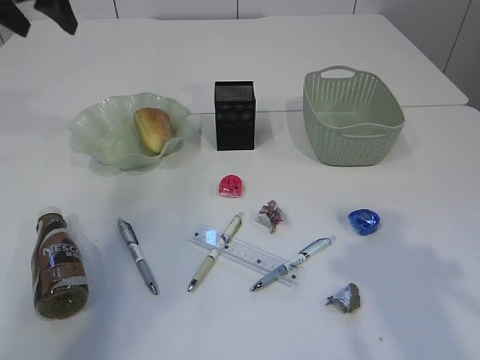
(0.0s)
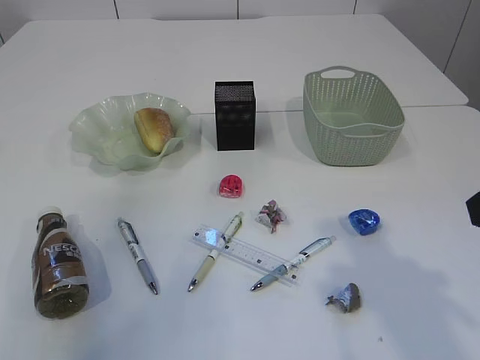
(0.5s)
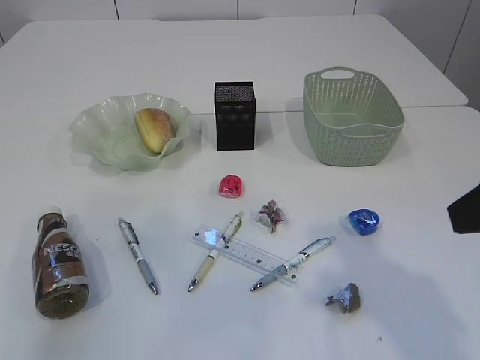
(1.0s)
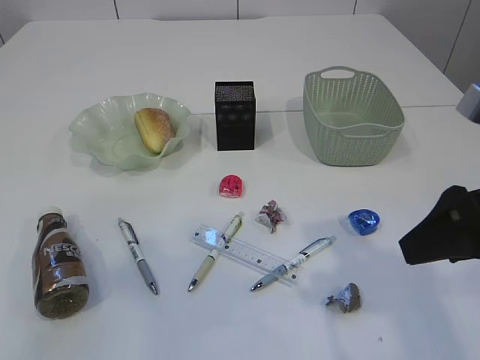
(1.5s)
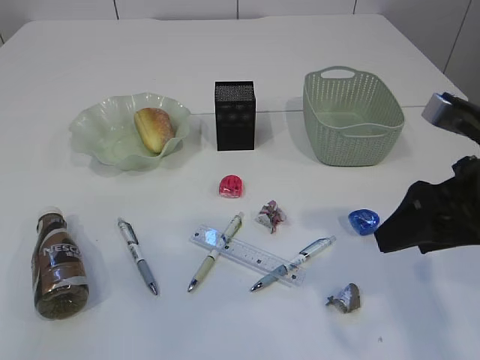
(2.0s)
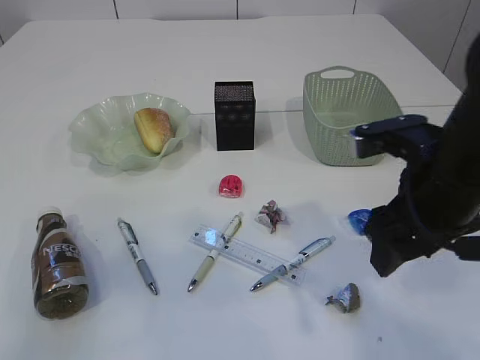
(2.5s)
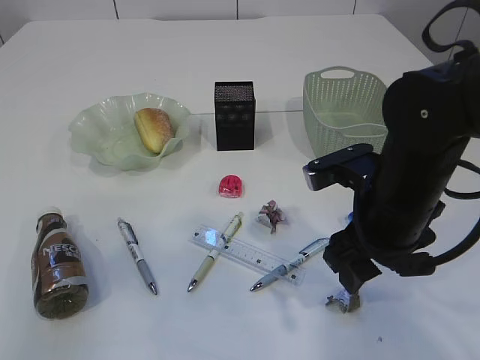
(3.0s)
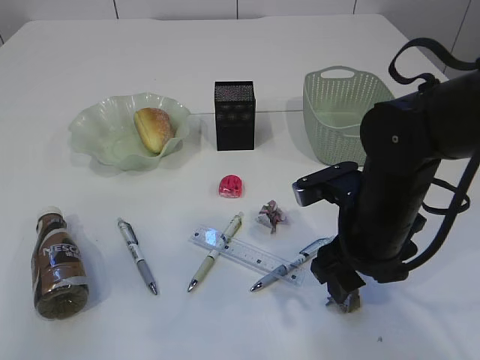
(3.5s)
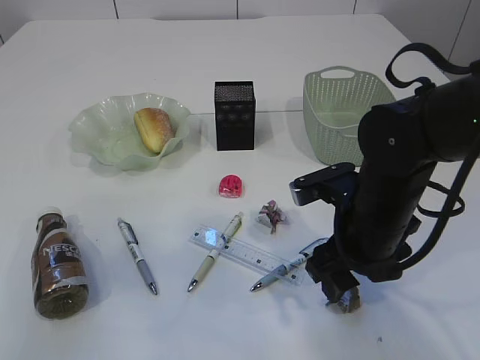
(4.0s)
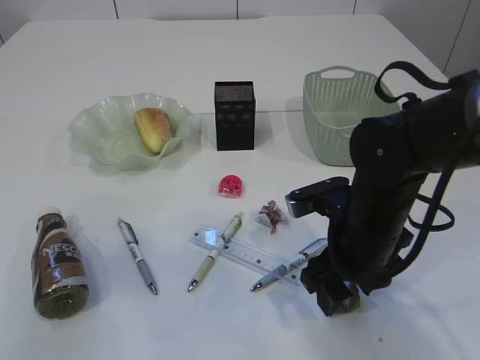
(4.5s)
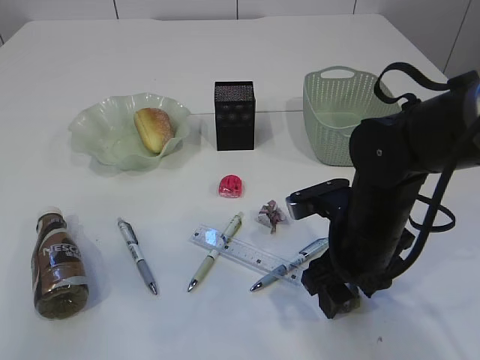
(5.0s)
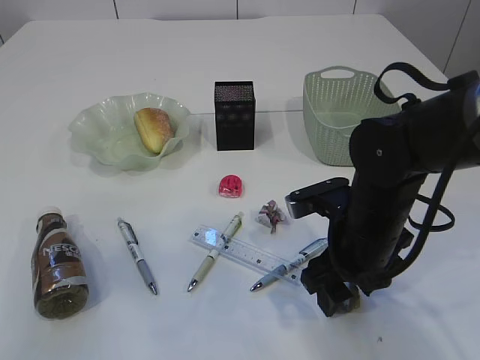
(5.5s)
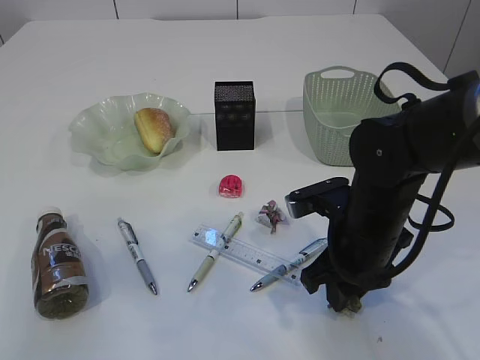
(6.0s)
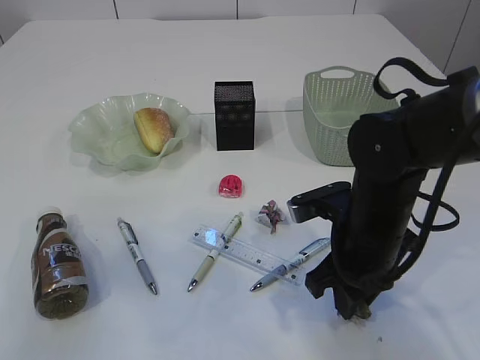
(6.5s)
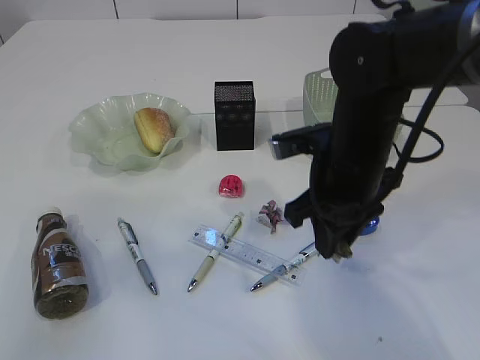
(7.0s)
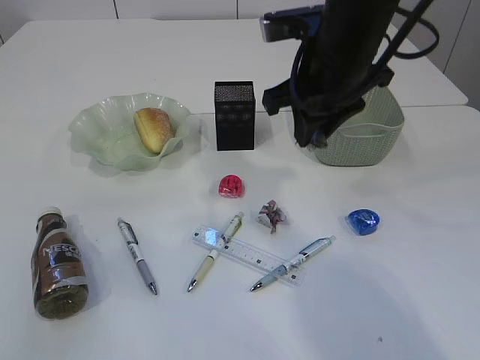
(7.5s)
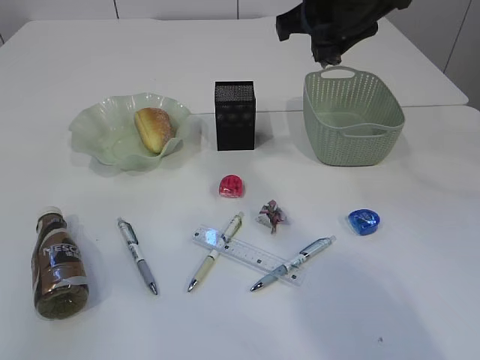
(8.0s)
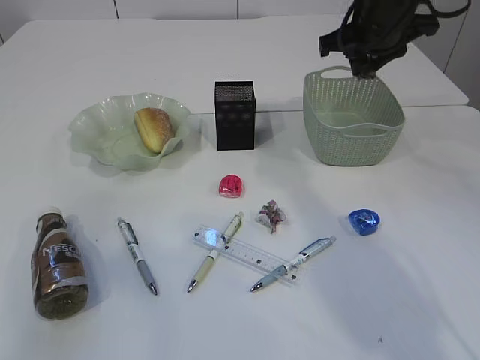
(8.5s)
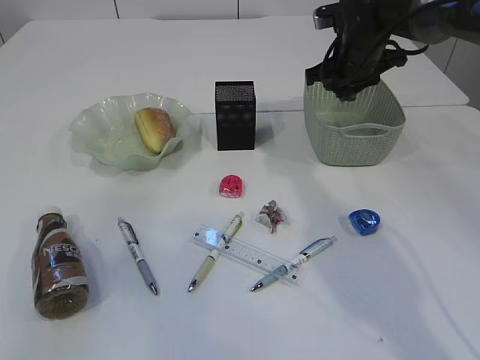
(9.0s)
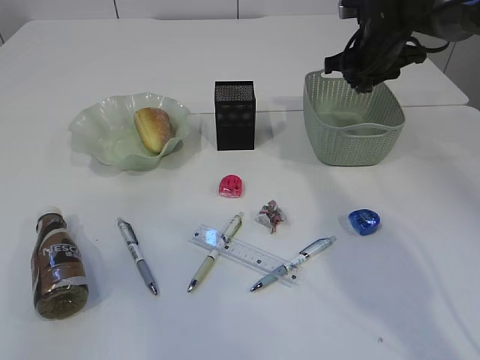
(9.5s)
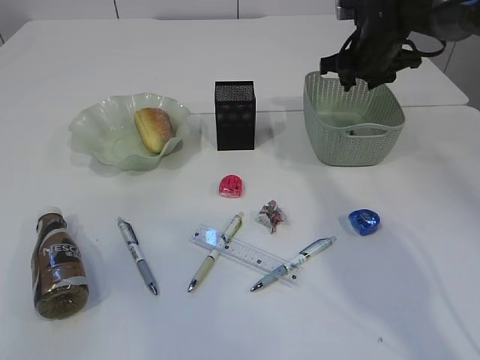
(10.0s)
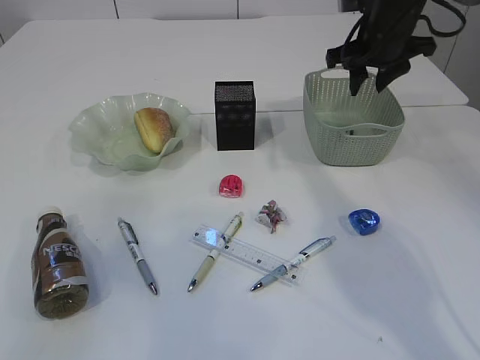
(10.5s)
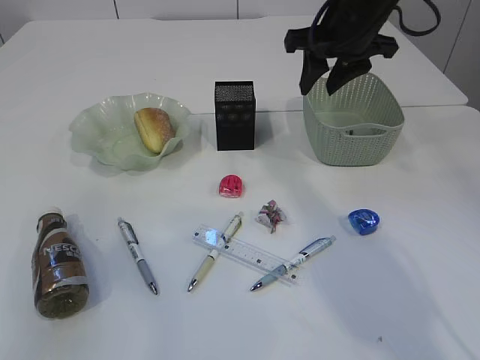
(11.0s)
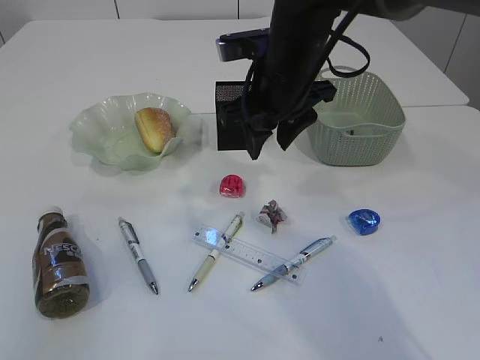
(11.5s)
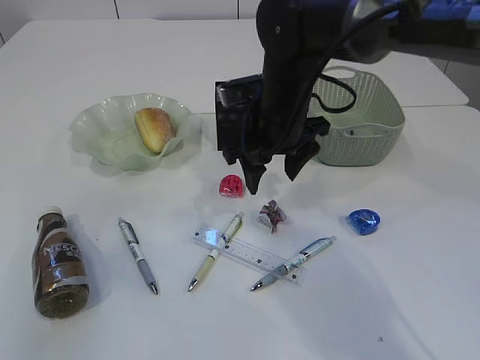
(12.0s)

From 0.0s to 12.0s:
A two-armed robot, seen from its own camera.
Step, from 0.0s to 7.0s: Pick up the waste paper.
Step, from 7.5s to 10.5s: Place the waste paper in the basket.
From 0.0s to 2.0s: The left gripper heads backward, covering about 40 cm, while the right gripper goes roughly 10 cm downward.
From 2.0s to 4.0s: The right gripper is displaced downward, to the left and forward by roughly 15 cm.
From 4.0s to 6.0s: The right gripper closes its fingers.
From 6.0s to 8.0s: The right gripper shifts about 25 cm upward and forward.
From 8.0s to 10.0s: The right gripper shifts some 20 cm forward, downward and to the right.
From 10.0s to 12.0s: The right gripper goes roughly 20 cm to the left and backward, and opens up.

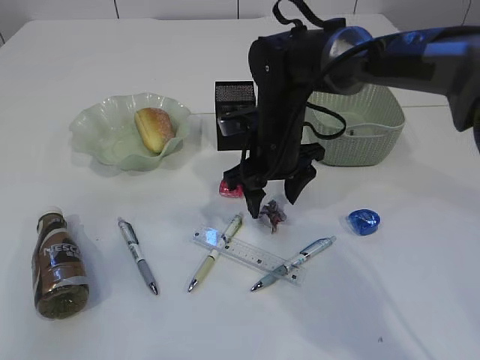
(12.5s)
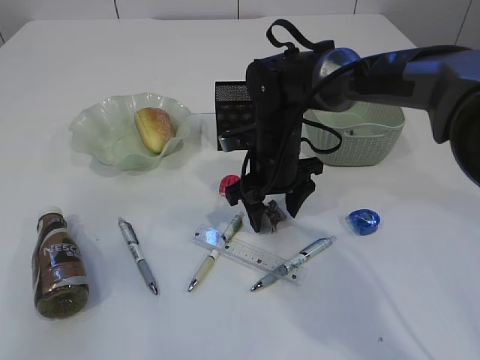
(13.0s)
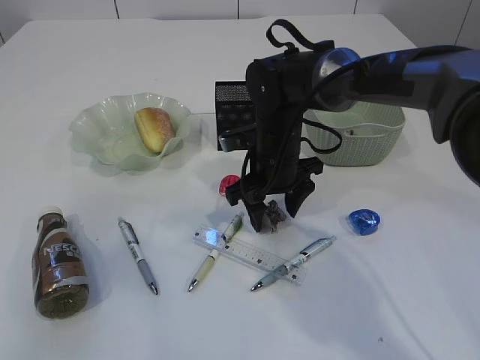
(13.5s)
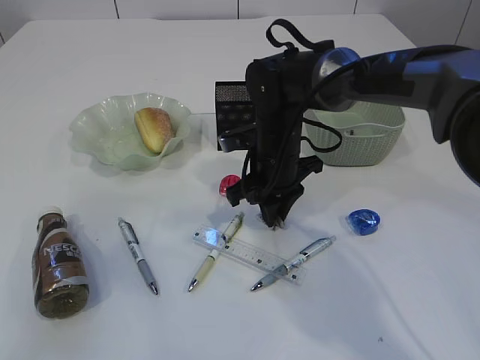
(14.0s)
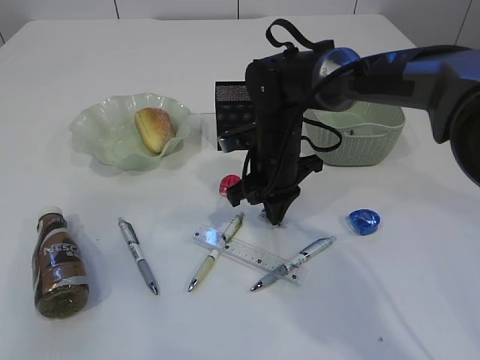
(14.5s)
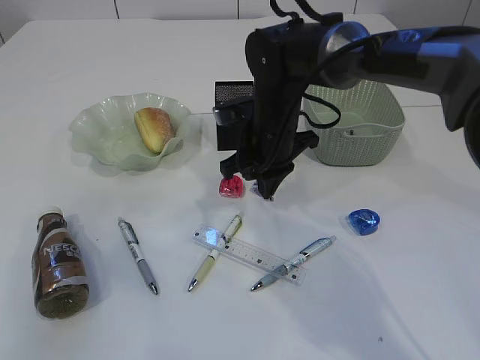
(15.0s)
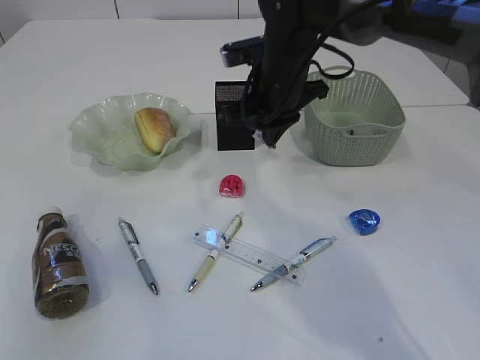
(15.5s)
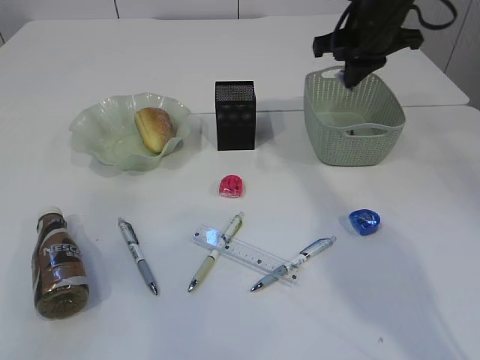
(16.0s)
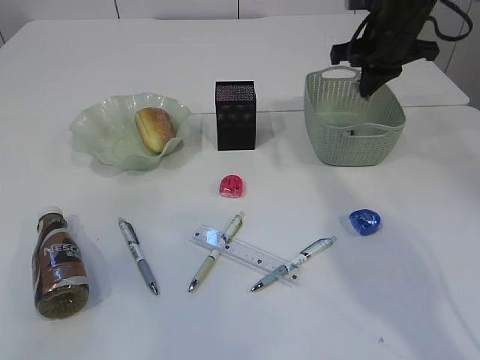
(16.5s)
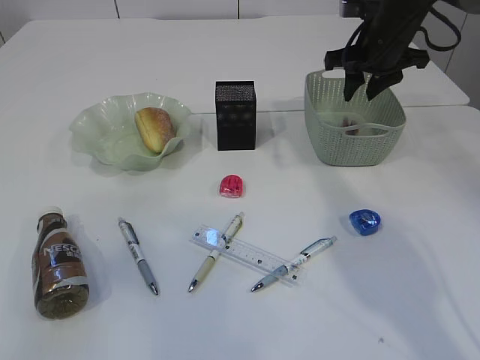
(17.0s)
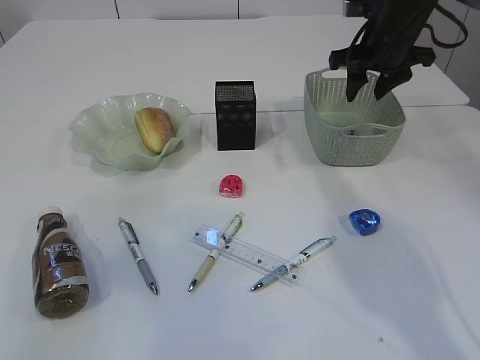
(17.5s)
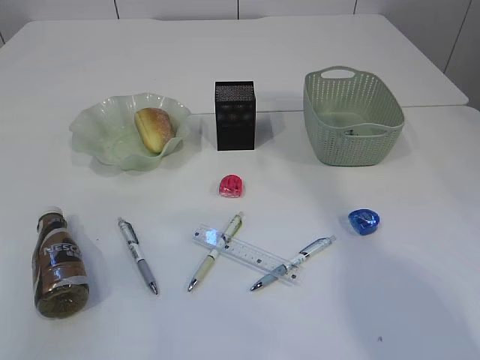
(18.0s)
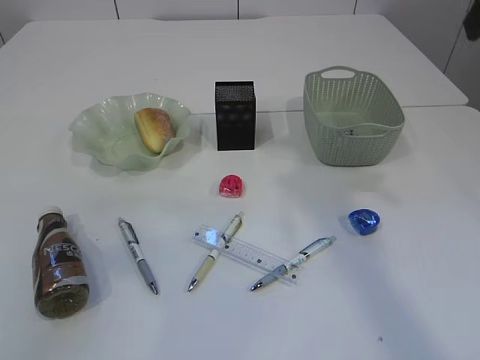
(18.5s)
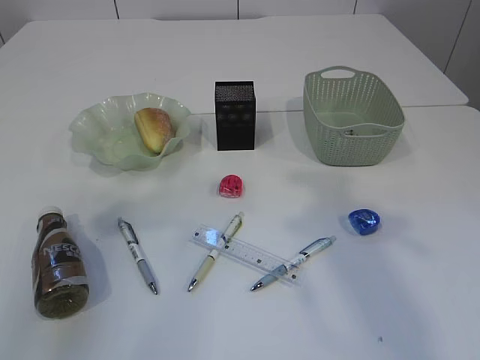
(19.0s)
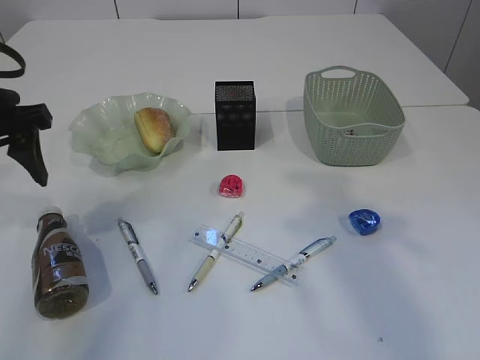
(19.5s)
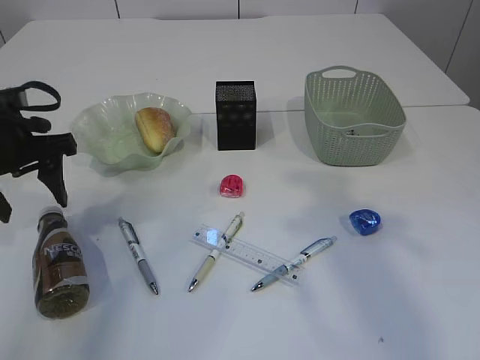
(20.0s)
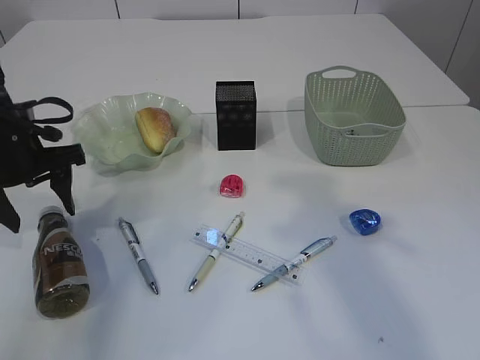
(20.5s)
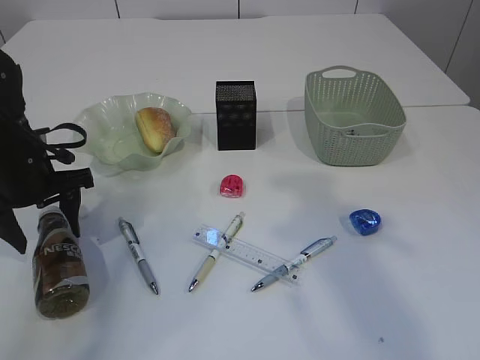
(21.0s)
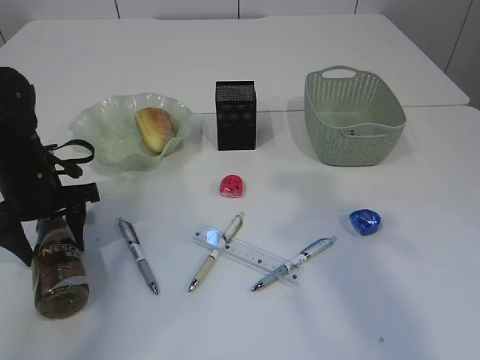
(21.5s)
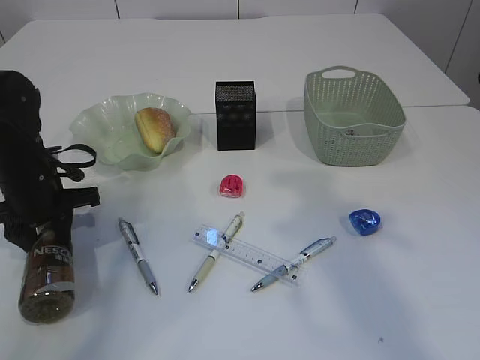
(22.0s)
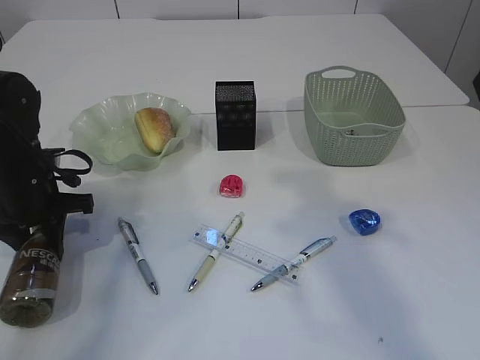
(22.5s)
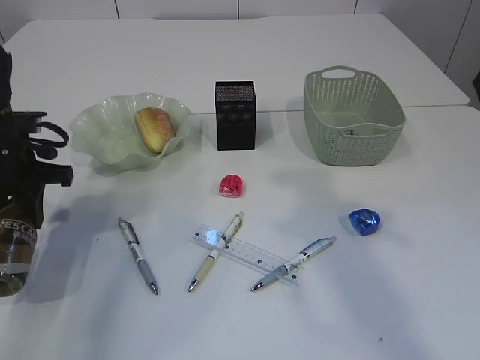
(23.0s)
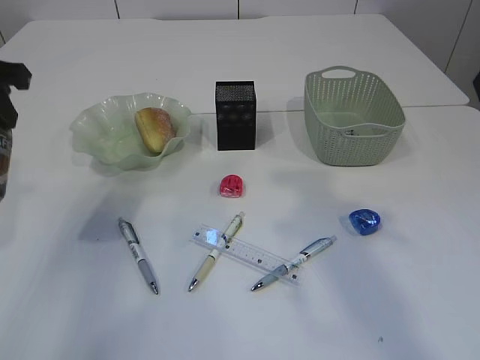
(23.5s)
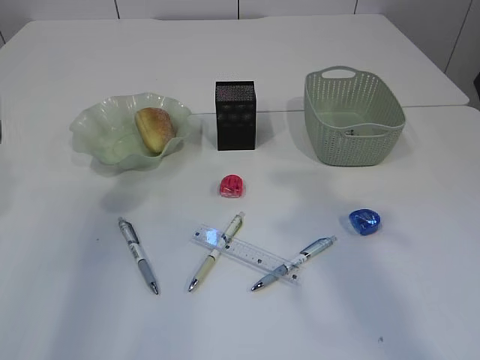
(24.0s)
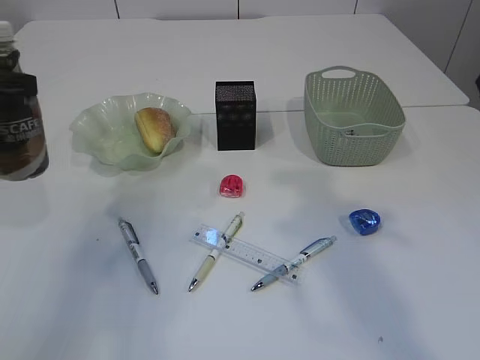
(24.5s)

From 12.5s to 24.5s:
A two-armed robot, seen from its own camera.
Step, from 12.5s to 15.0s: Pick up the waste paper.
Step, from 15.5s to 17.5s: Place the waste paper in the basket.
Step, from 18.0s to 23.0s: Pick up the bottle with the left arm.
From 12.5s to 14.5s: The right gripper closes its fingers.
From 14.5s to 16.5s: The right gripper moves to the right, upward and forward, approximately 20 cm.
From 16.5s to 18.5s: The right gripper heads backward and upward, covering approximately 25 cm, and opens its fingers.
From 18.5s to 20.5s: The right gripper is displaced backward by roughly 10 cm. Meanwhile the left gripper heads downward and forward, covering roughly 35 cm.
From 20.5s to 22.5s: The left gripper goes about 5 cm downward, and closes up.
From 22.5s to 24.5s: The left gripper is displaced upward and backward by some 20 cm.

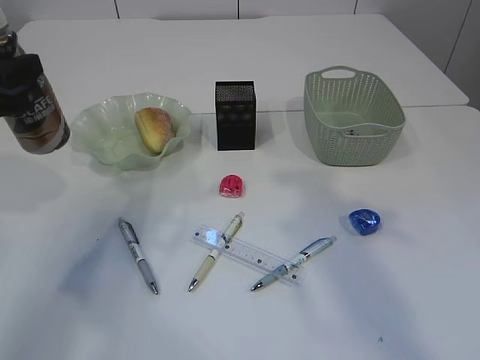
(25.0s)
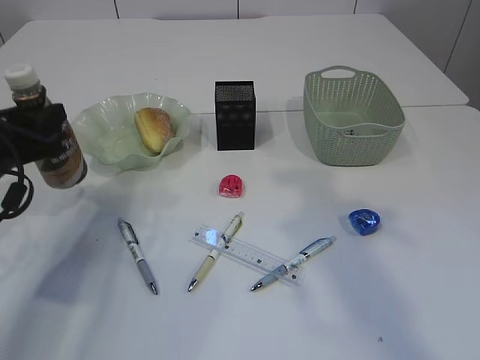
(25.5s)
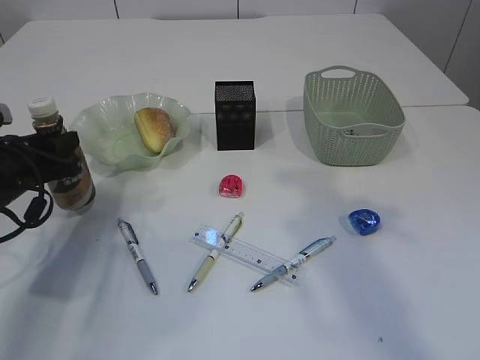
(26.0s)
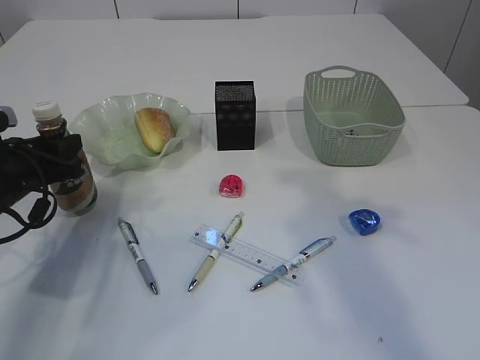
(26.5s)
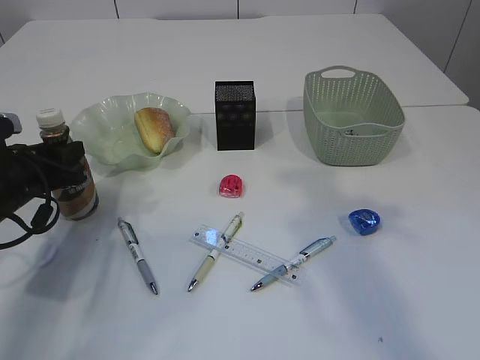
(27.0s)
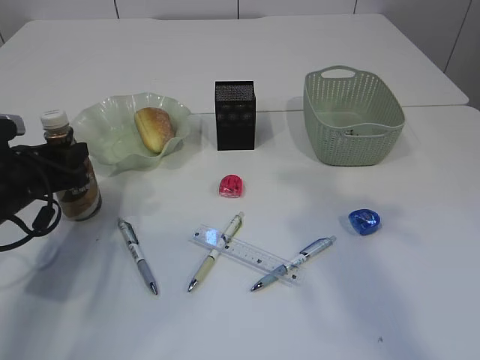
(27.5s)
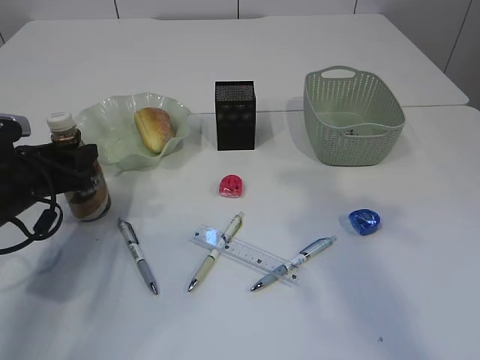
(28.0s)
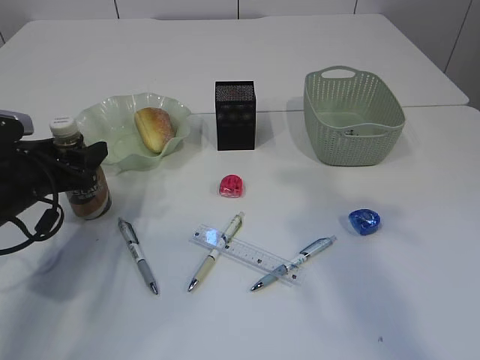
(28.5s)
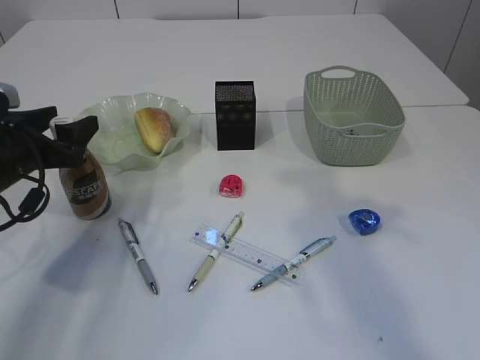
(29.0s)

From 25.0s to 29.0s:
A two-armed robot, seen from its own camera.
From 25.0s to 27.0s: The left gripper is displaced downward by approximately 15 cm.
From 27.0s to 29.0s: The left gripper opens.
